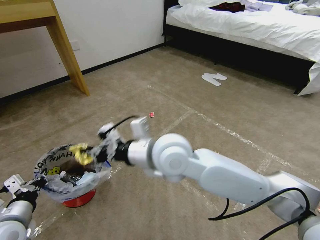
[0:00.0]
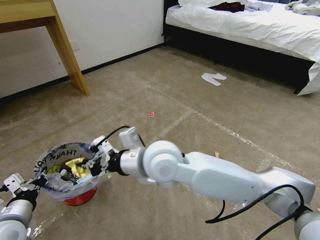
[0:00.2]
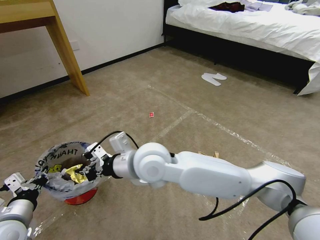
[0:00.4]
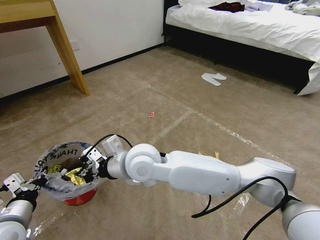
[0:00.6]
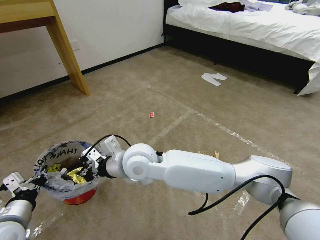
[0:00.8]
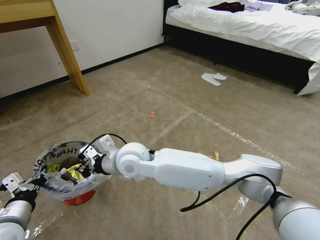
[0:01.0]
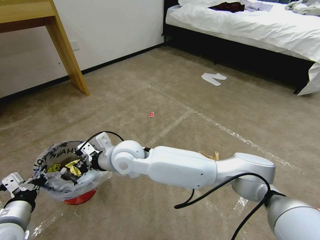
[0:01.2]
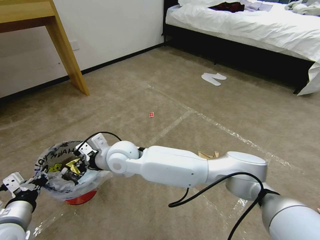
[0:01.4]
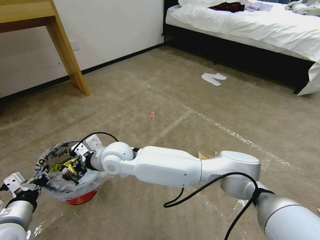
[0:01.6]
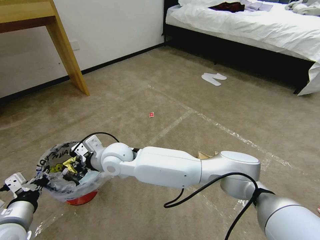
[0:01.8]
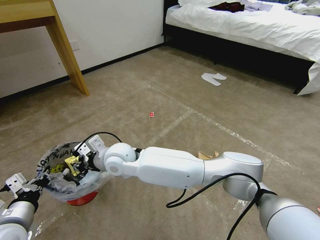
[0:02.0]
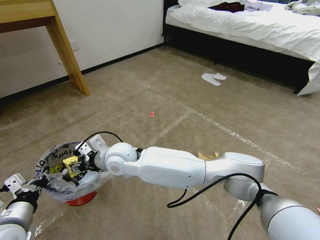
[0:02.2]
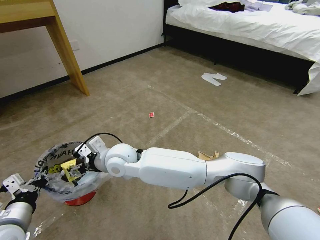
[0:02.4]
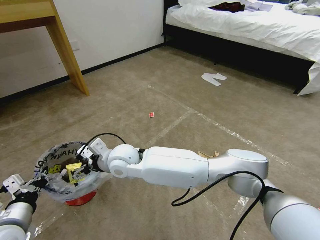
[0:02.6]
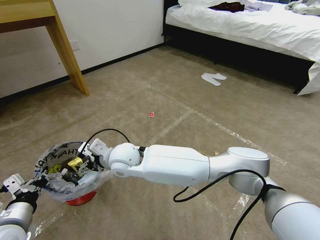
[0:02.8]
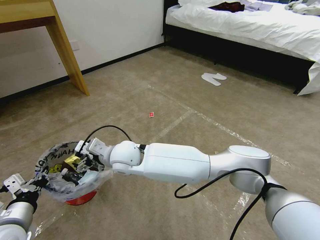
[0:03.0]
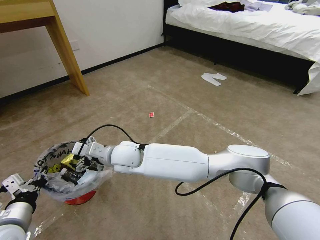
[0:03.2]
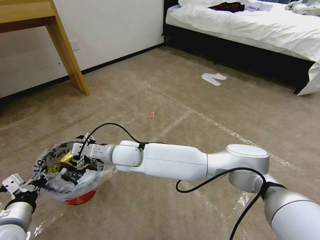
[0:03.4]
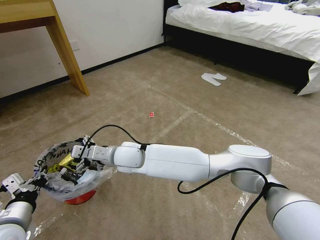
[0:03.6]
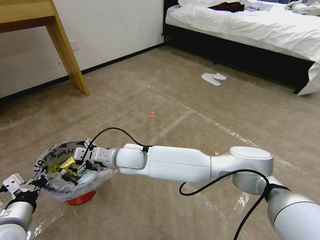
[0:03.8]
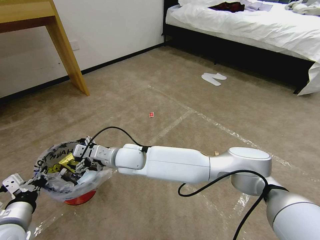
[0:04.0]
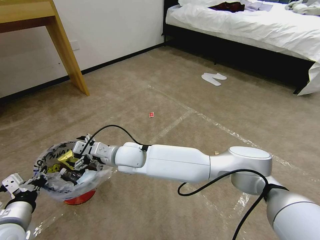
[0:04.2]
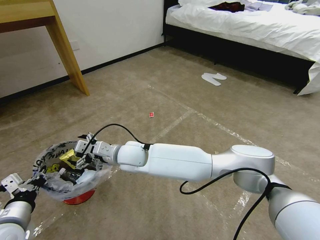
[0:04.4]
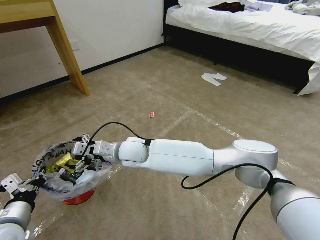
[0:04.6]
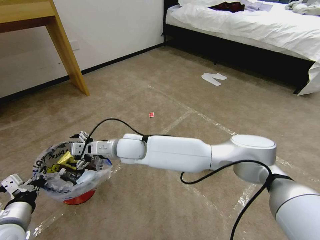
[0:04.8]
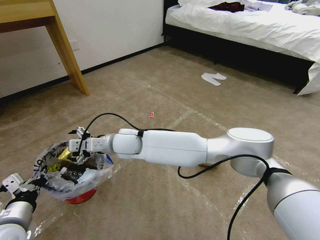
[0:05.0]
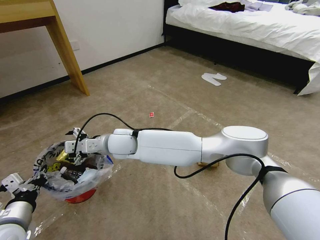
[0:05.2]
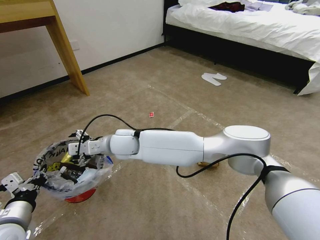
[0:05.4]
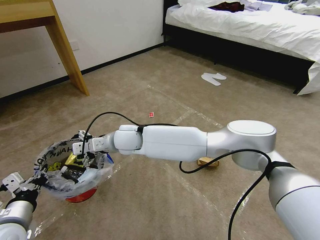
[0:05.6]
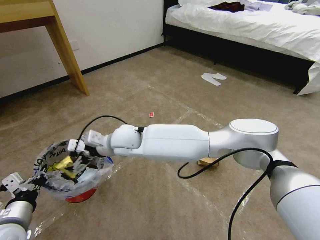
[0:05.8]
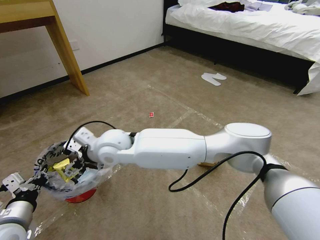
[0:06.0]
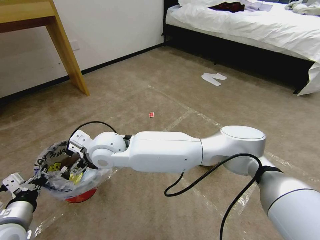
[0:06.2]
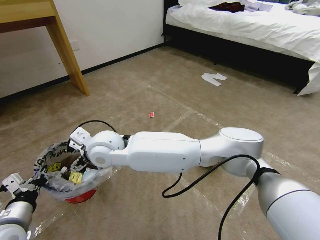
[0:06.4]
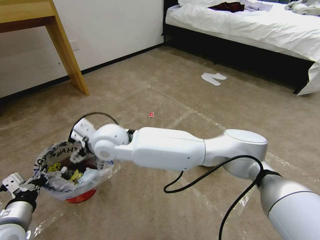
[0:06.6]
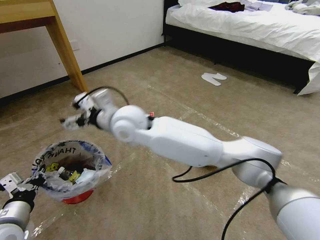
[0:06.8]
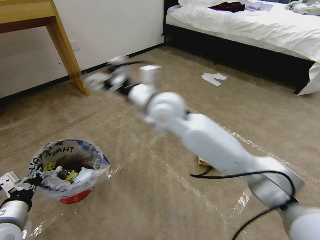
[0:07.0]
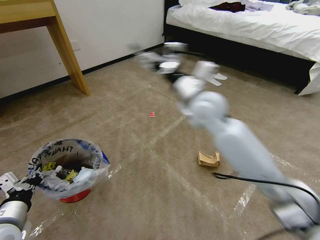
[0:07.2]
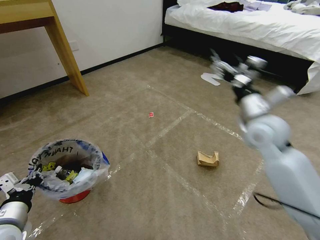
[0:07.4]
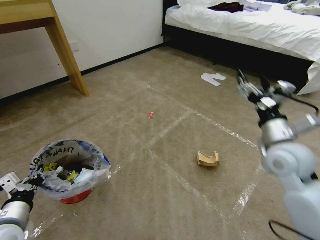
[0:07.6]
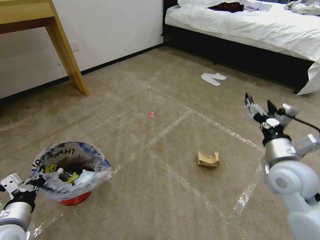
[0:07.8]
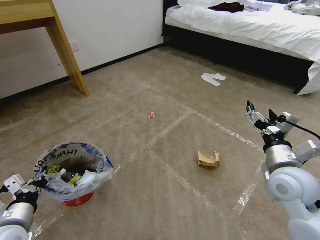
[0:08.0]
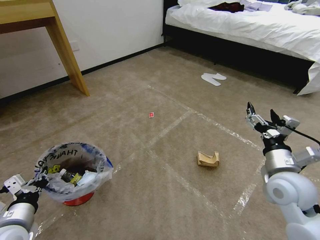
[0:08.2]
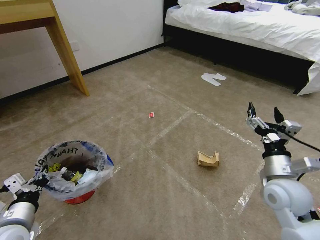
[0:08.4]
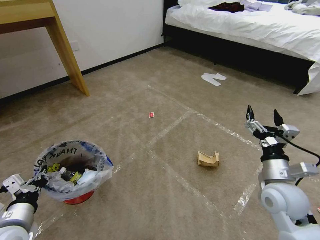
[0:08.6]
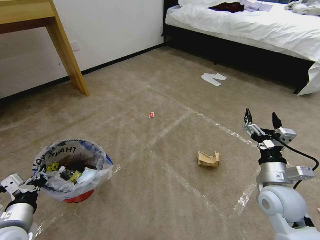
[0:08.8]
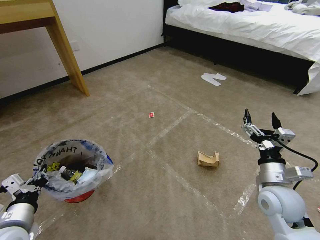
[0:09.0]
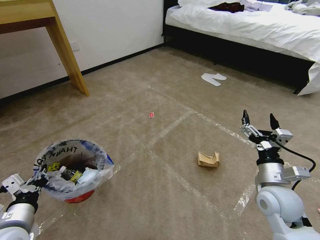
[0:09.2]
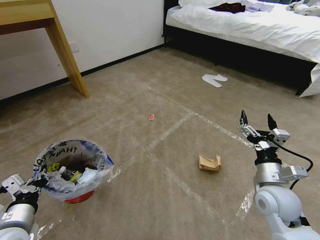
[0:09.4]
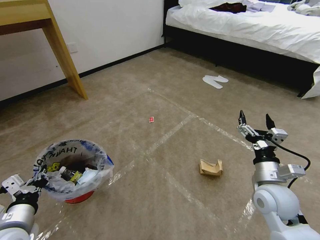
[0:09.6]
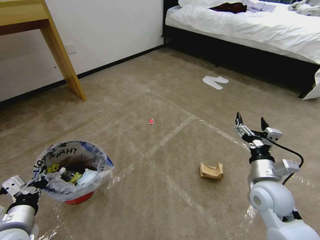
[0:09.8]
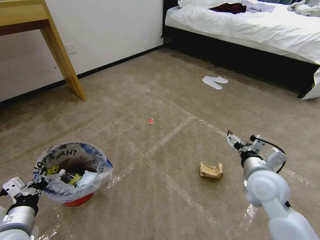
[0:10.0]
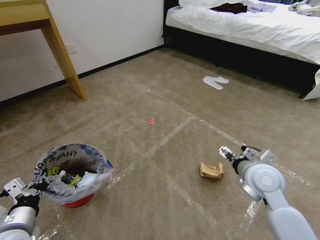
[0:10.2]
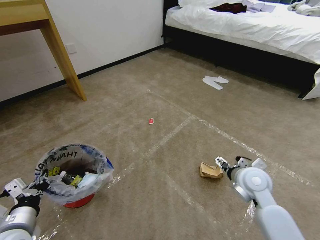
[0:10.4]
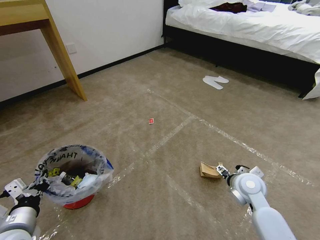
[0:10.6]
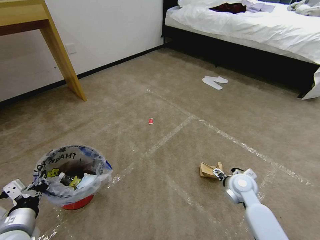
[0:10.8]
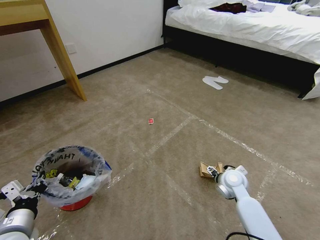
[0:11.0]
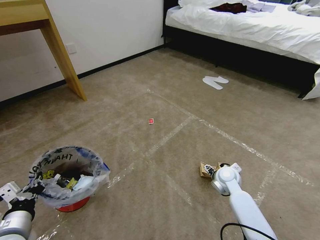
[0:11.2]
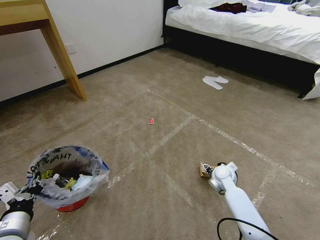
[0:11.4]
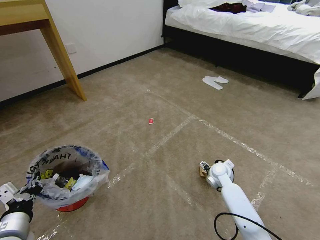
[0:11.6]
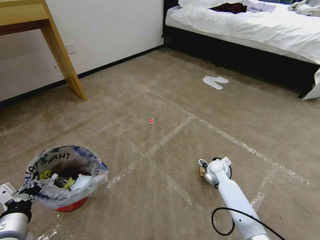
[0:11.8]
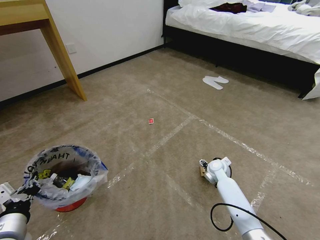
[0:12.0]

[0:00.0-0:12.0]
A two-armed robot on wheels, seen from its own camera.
Task of the whole recording: Pick up the trash bin and place the garbage on the floor into it.
0:00.0 to 0:01.6: The right gripper moves to the left and downward, about 20 cm.
0:01.6 to 0:03.0: The right gripper opens up.
0:04.4 to 0:06.0: The right gripper shifts roughly 5 cm upward.
0:06.0 to 0:07.6: The right gripper shifts roughly 50 cm to the right.
0:07.6 to 0:09.0: The right gripper goes roughly 15 cm downward and backward.
0:09.0 to 0:10.4: The right gripper moves forward, roughly 5 cm.
0:10.4 to 0:12.0: The right gripper heads downward and forward, covering roughly 20 cm.

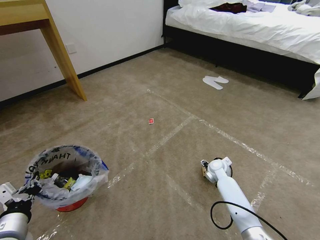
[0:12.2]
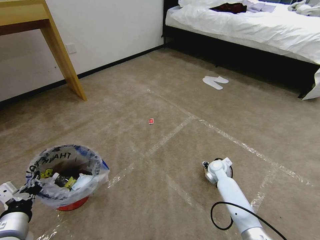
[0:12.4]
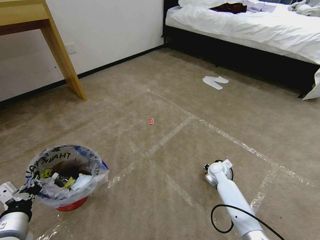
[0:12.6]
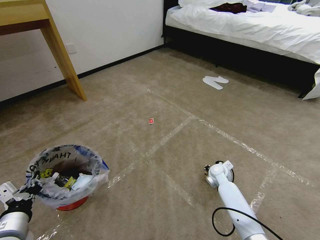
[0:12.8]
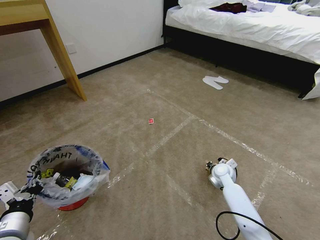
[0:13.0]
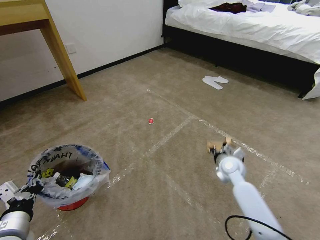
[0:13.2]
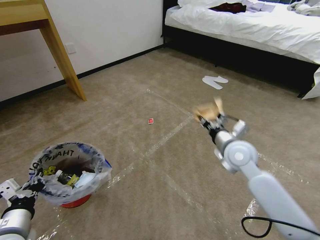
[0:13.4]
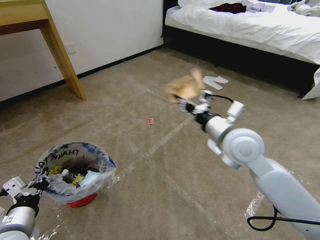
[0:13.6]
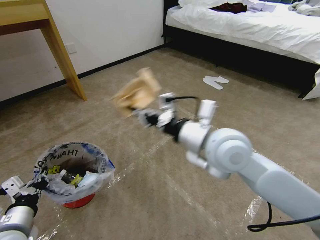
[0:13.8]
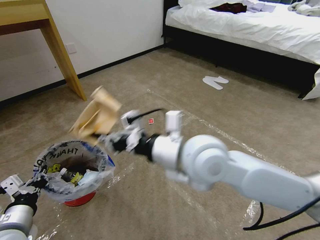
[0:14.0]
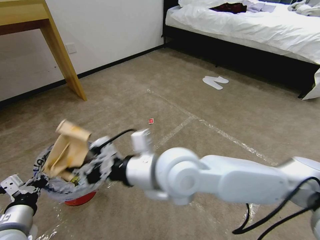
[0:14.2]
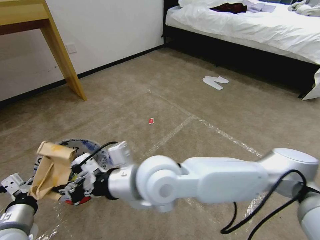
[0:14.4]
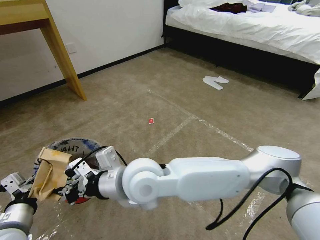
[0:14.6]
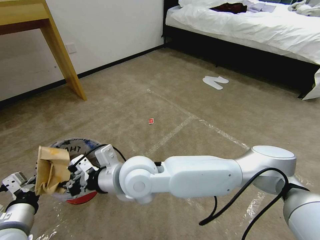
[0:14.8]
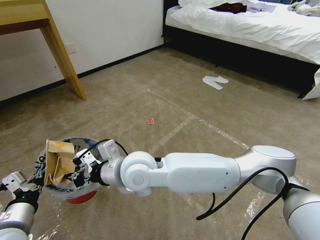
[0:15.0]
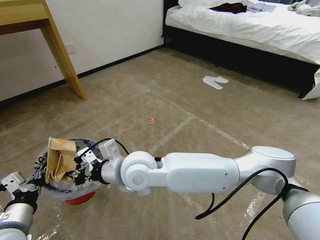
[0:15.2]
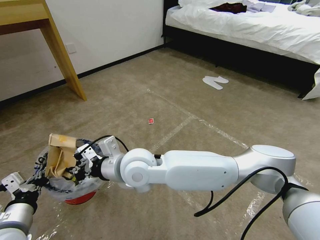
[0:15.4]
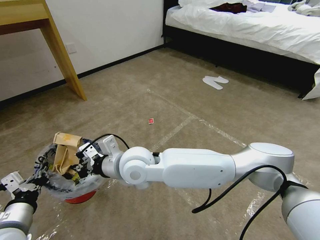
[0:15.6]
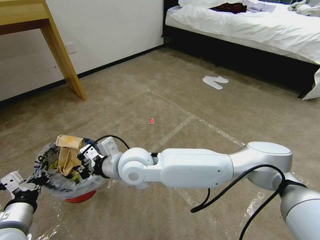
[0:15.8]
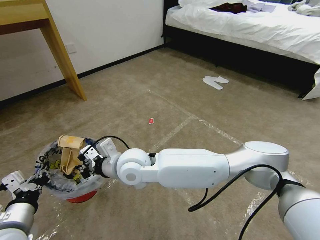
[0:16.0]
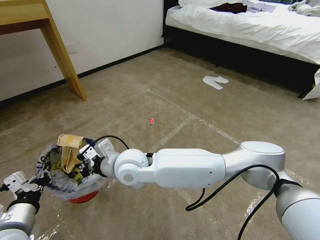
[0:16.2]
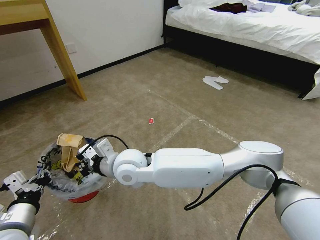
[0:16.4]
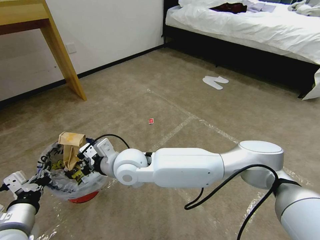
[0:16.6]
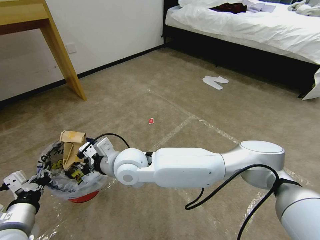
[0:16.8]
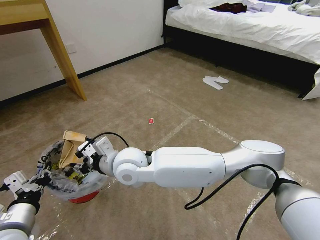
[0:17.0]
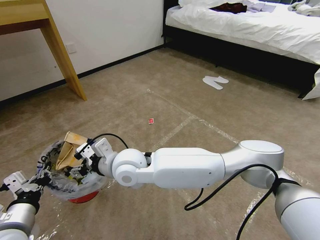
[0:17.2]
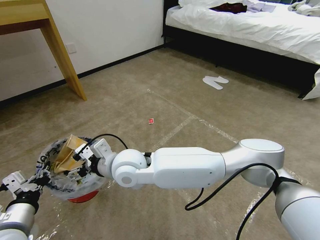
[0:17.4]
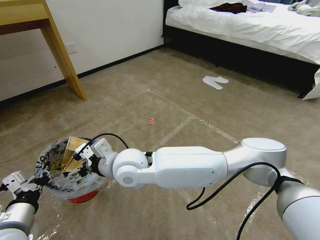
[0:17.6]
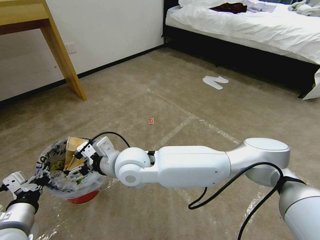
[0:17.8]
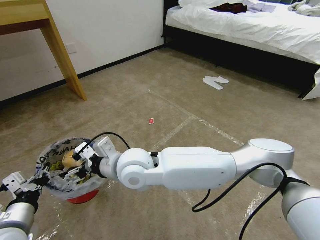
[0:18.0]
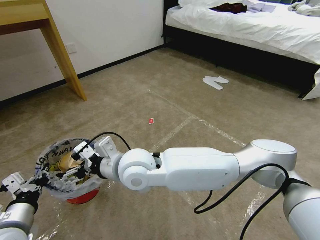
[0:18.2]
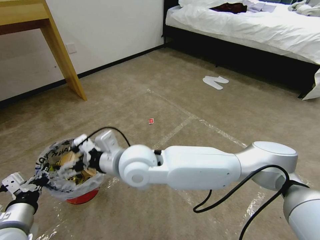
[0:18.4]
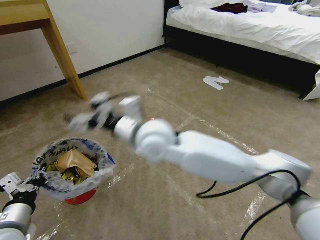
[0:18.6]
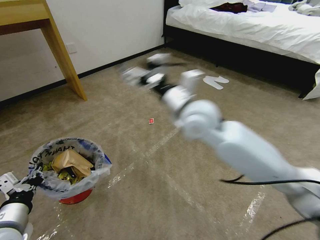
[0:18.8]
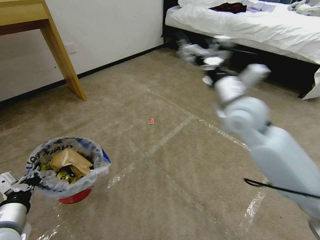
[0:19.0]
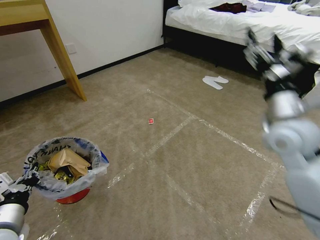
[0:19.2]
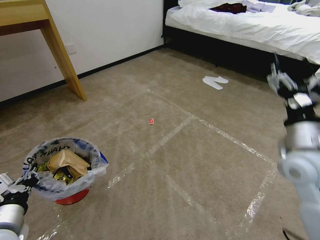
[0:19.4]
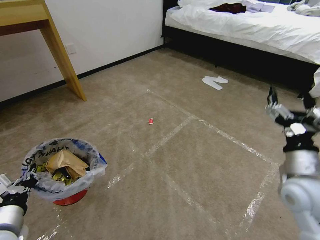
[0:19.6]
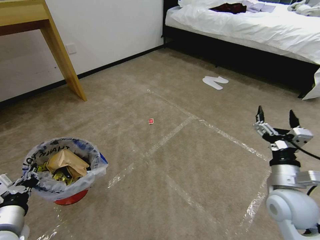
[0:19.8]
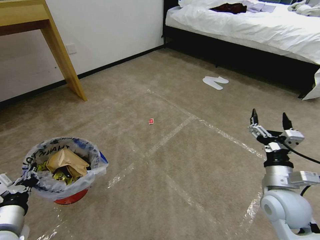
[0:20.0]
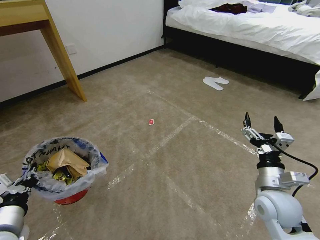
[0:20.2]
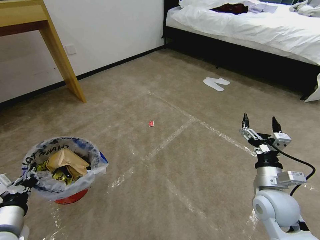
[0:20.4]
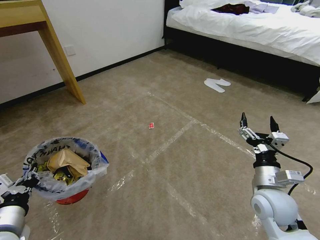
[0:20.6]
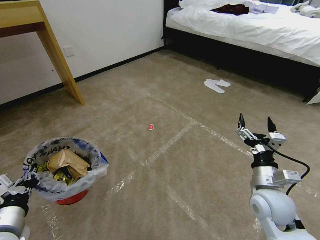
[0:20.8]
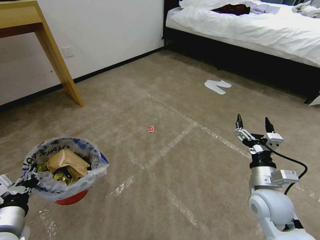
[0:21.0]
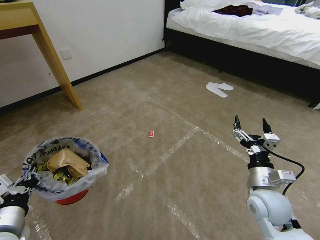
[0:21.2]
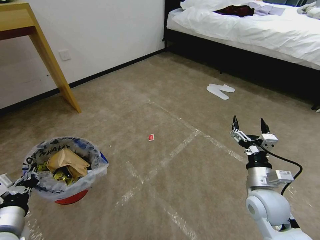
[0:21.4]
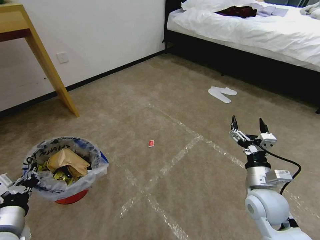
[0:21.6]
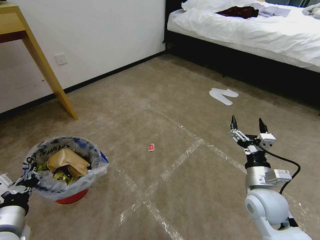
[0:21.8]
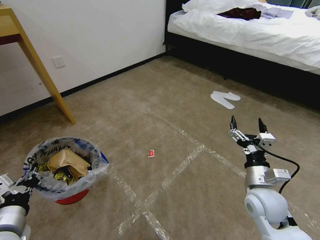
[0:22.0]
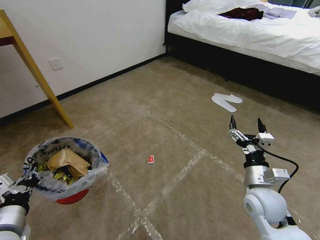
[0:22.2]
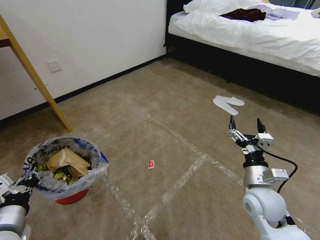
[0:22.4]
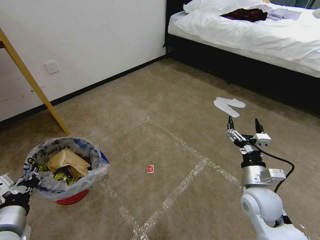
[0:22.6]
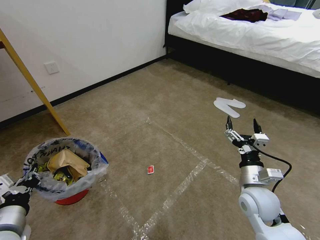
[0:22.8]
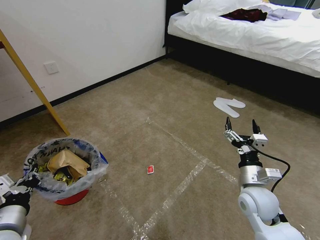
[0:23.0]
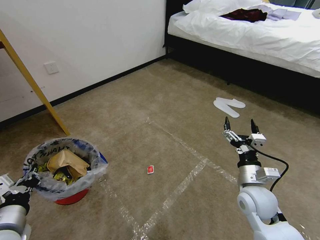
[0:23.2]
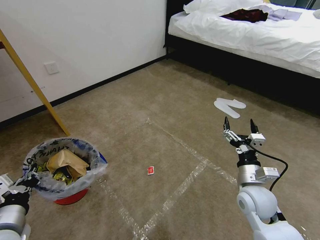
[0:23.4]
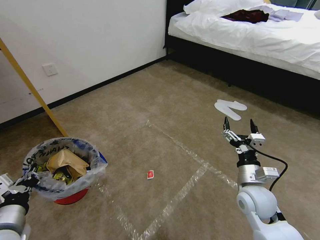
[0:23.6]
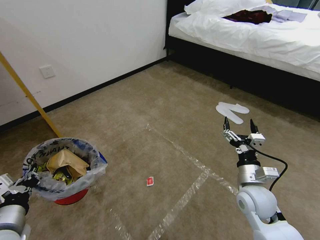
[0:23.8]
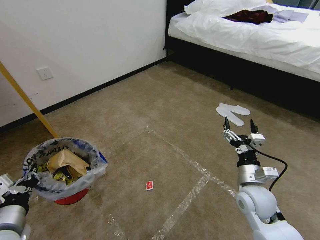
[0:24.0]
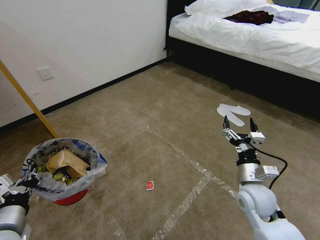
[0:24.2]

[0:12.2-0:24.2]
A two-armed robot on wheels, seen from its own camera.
Task of the whole recording: Pick up the trash bin and place the garbage on the floor into it.
0:12.2 to 0:13.8: The right gripper is displaced upward and backward by approximately 40 cm, and closes up.
0:13.8 to 0:15.2: The right gripper is displaced to the left and downward by approximately 20 cm.
0:15.2 to 0:16.6: The grippers stay close to where they were, moving slightly.
0:16.6 to 0:18.2: The right gripper ends up about 5 cm from where it was, and opens its fingers.
0:18.2 to 0:19.8: The right gripper heads to the right, covering about 40 cm.
0:19.8 to 0:21.2: The right gripper ends up about 5 cm from where it was.
0:22.6 to 0:24.2: The grippers move only a little.
